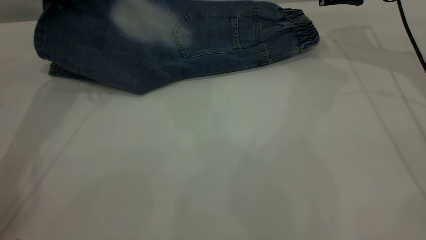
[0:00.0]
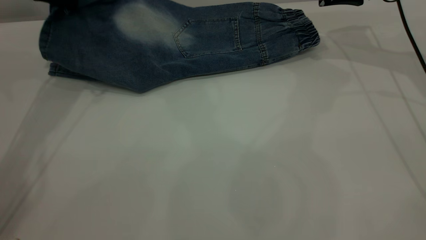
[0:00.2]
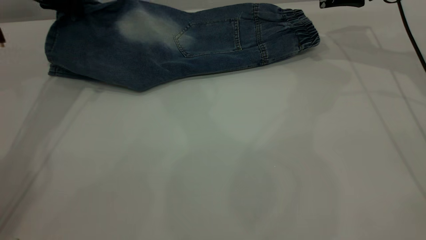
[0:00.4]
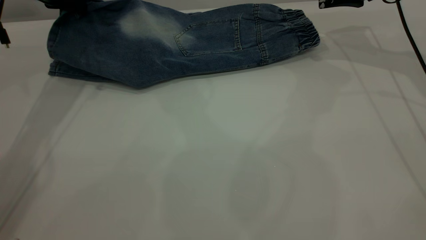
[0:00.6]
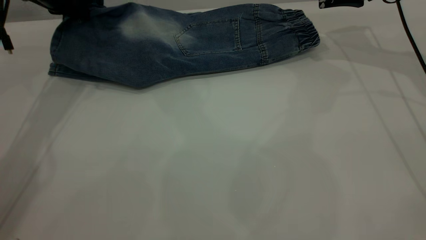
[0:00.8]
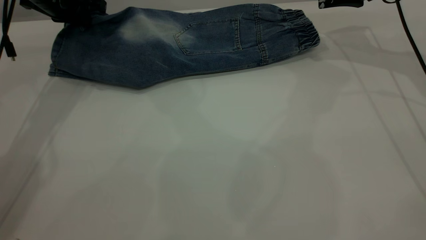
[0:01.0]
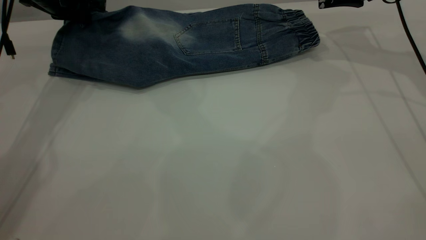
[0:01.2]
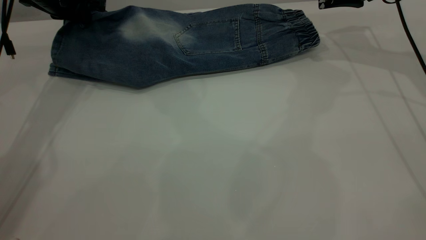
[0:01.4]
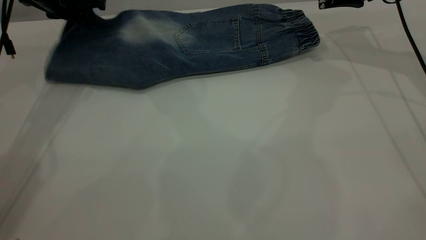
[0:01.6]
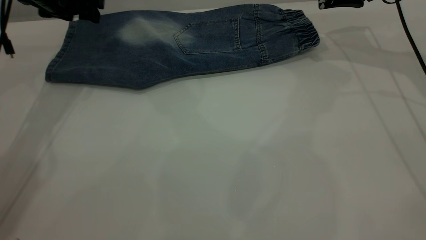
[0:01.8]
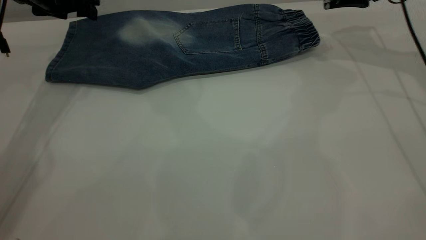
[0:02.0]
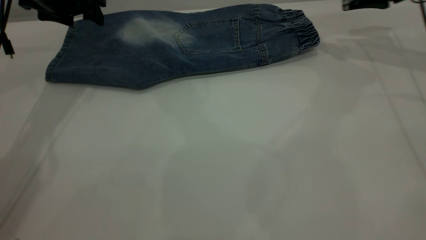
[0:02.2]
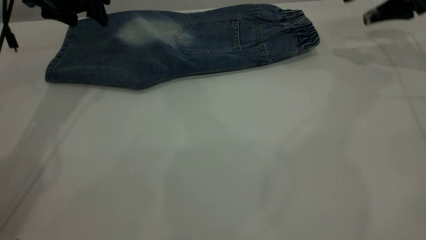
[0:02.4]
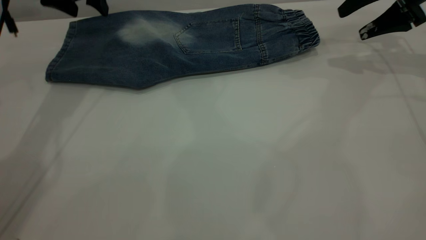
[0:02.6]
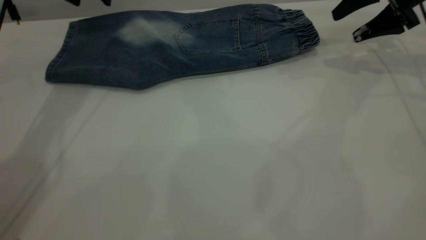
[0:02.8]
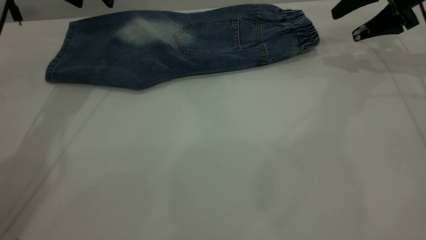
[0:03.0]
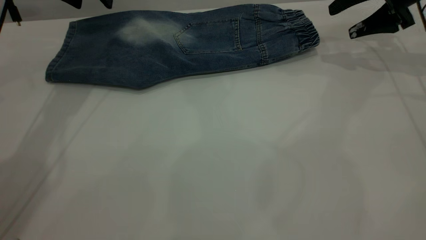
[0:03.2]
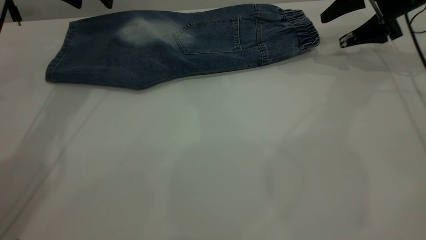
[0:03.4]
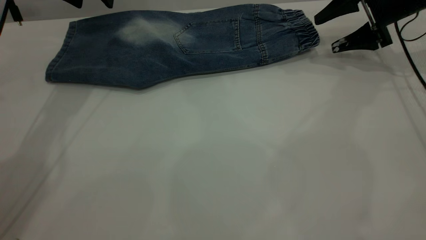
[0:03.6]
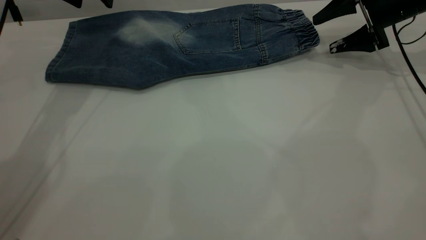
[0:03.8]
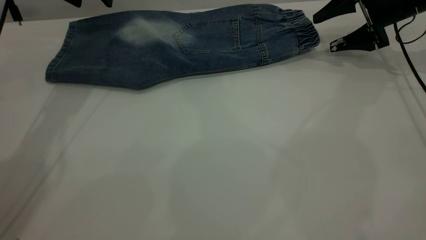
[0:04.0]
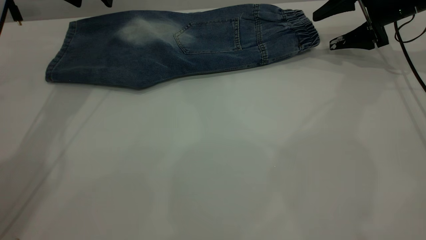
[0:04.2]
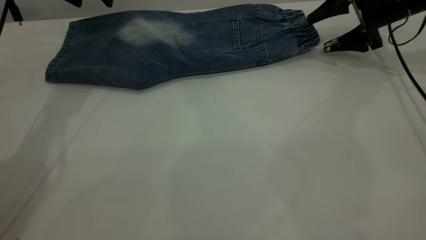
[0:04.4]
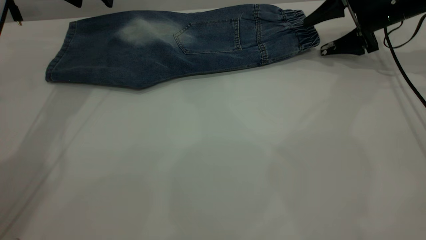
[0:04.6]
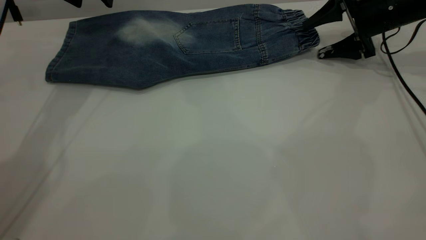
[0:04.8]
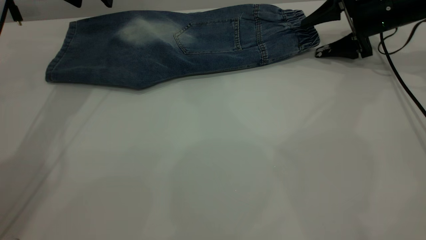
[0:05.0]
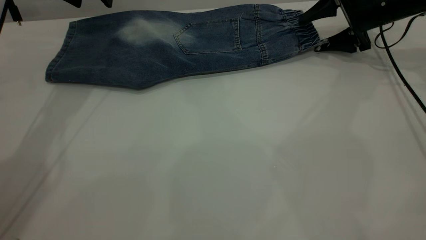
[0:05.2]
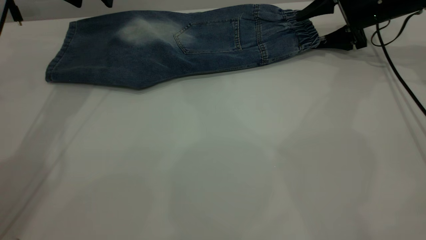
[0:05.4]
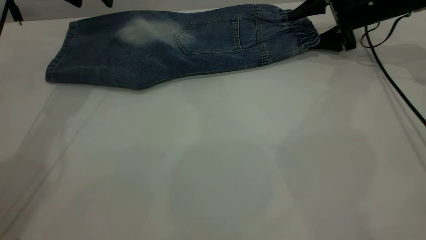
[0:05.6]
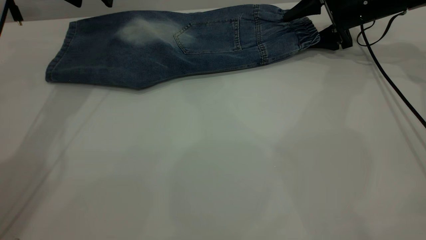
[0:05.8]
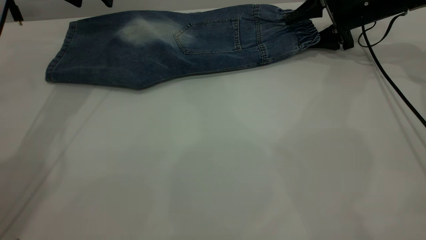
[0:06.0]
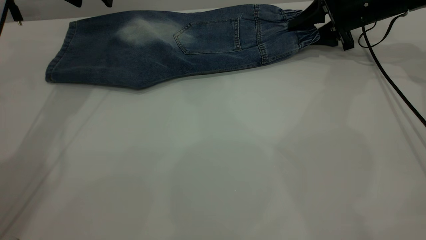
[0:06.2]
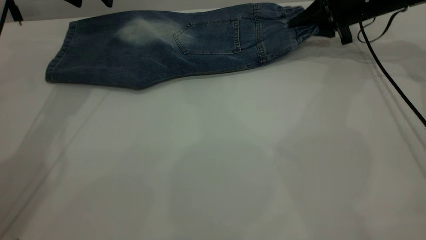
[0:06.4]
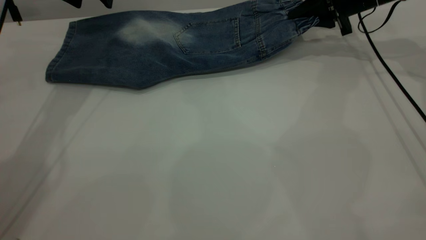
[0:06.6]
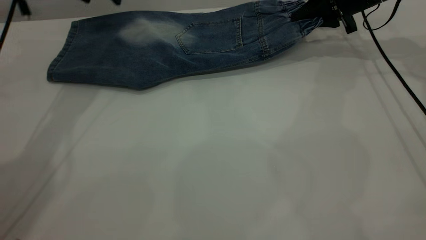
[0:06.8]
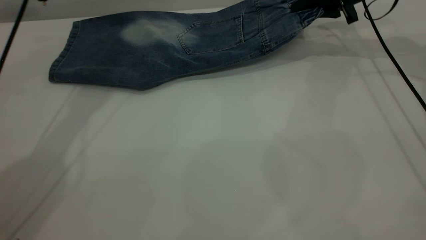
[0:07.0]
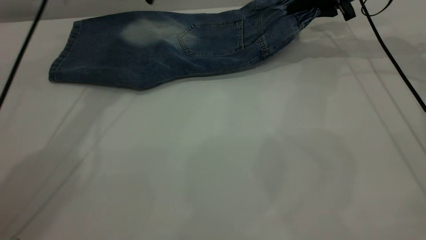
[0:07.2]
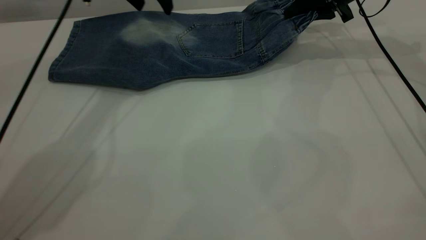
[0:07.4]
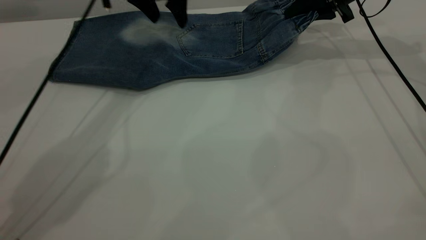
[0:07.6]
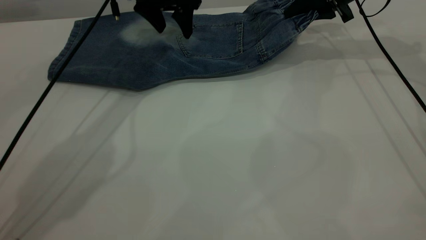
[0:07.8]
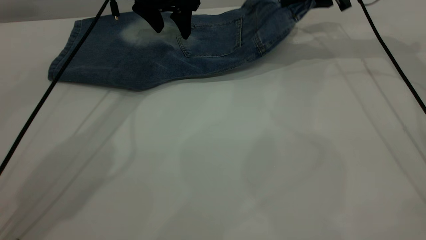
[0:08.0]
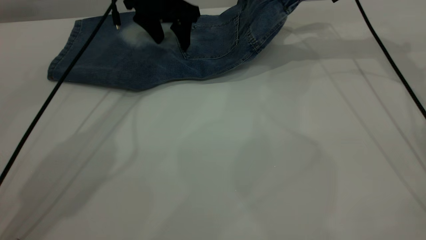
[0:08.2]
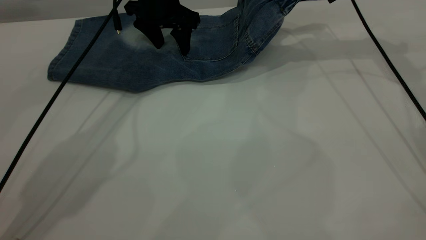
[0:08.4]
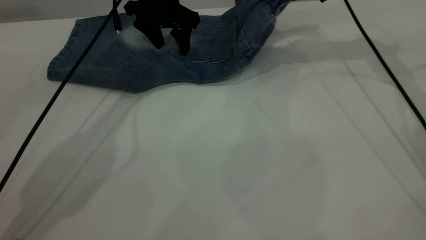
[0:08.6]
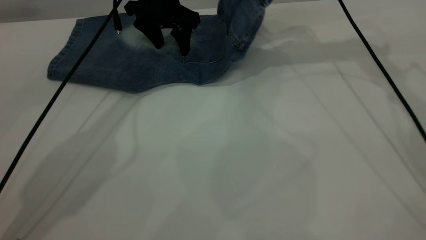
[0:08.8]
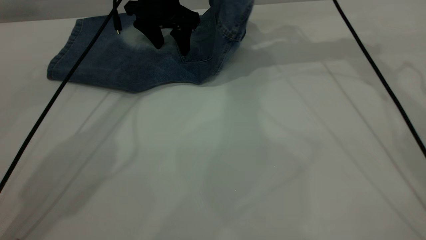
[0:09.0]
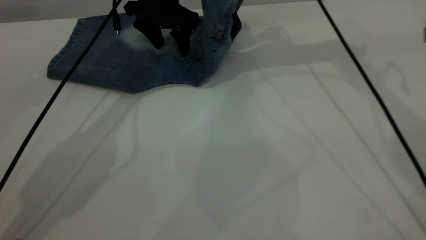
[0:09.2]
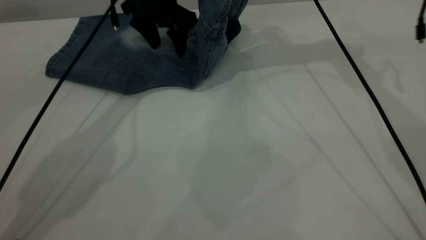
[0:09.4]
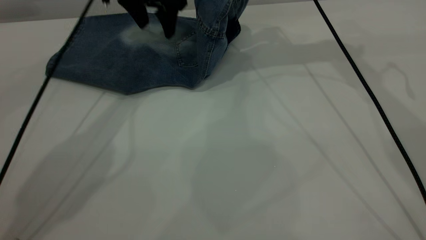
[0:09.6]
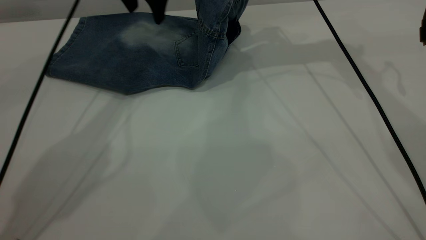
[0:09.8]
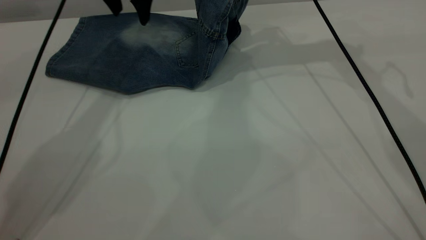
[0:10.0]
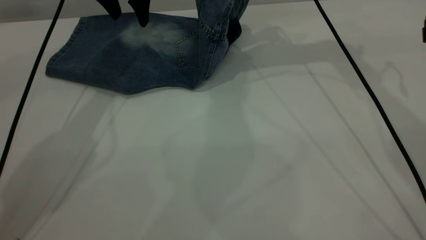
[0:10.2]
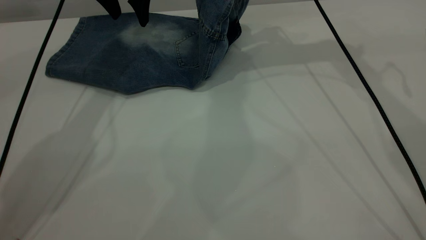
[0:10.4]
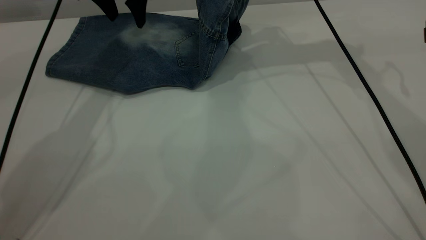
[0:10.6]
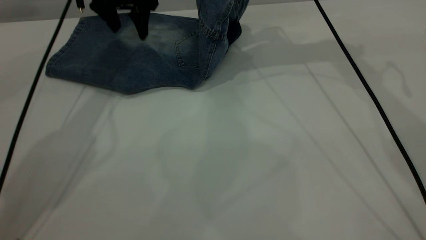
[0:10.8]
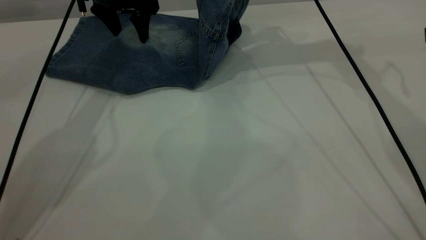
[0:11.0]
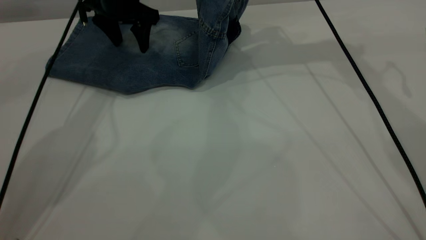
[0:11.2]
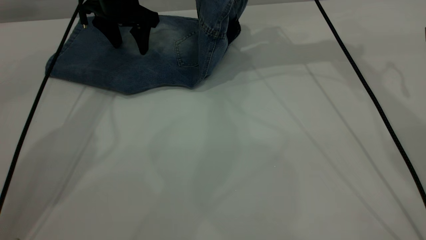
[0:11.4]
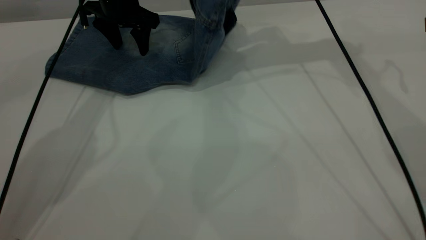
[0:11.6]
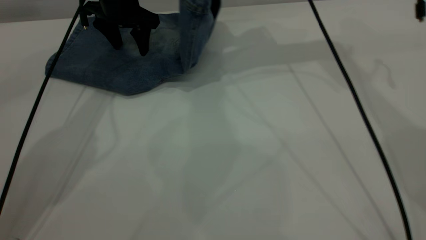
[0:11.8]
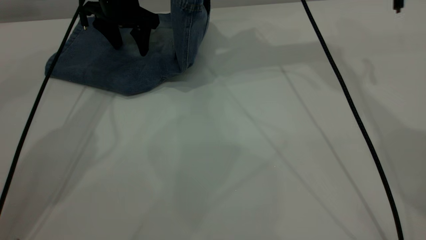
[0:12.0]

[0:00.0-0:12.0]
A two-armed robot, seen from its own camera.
Step, 0.0 to 3.0 s: Fold the bottom of the pants upward.
0.0 to 1.6 s: The left gripper shifts roughly 5 cm downward, and opens.
1.6 to 3.0 s: The left gripper moves about 5 cm, and opens. The right gripper changes place by some 5 cm.
3.0 to 4.4 s: The right gripper shifts by some 5 cm.
4.4 to 6.0 s: The grippers move only a little.
6.0 to 7.6 s: The left gripper is displaced to the right by approximately 15 cm. Meanwhile the right gripper goes about 5 cm upward, and closes its fingers.
7.6 to 9.0 s: The right gripper heads to the left and upward, covering roughly 10 cm.
9.0 to 10.4 s: The left gripper shifts about 10 cm to the left and upward.
10.4 to 12.0 s: The left gripper is displaced downward by about 5 cm. Meanwhile the right gripper moves upward, approximately 5 cm.

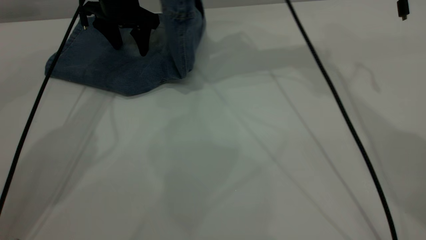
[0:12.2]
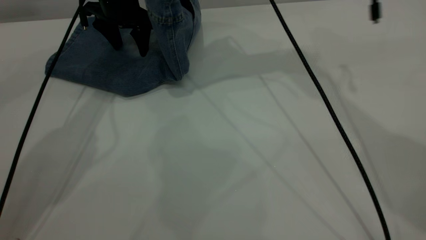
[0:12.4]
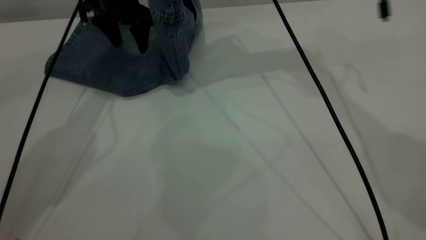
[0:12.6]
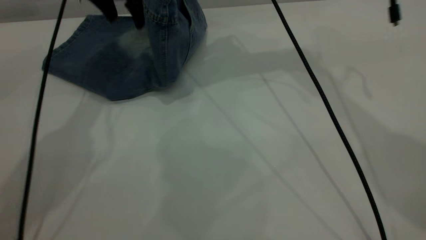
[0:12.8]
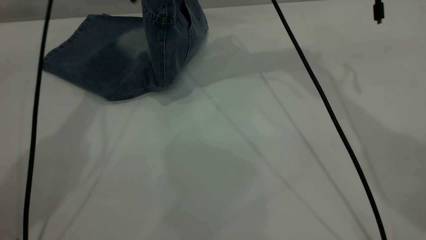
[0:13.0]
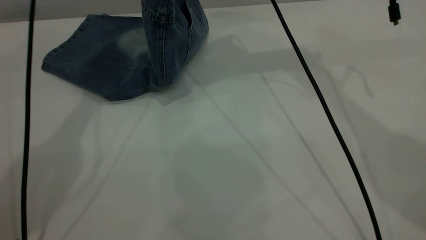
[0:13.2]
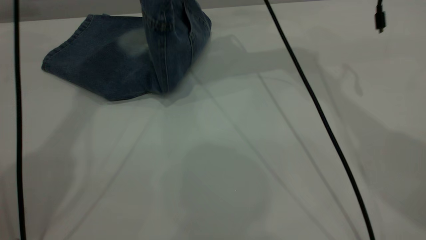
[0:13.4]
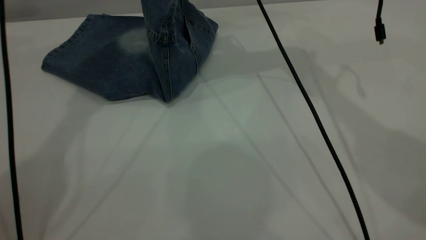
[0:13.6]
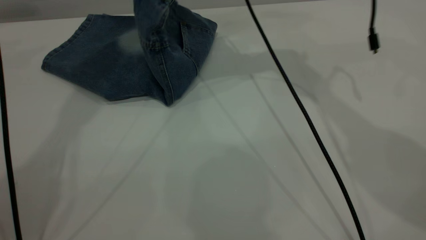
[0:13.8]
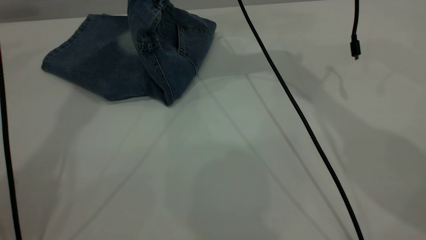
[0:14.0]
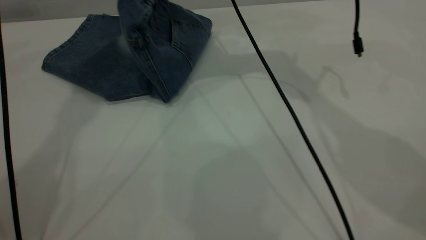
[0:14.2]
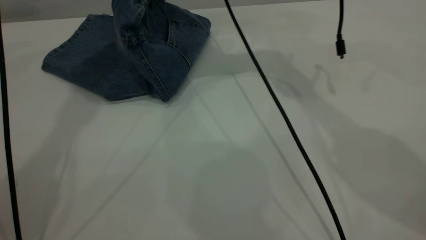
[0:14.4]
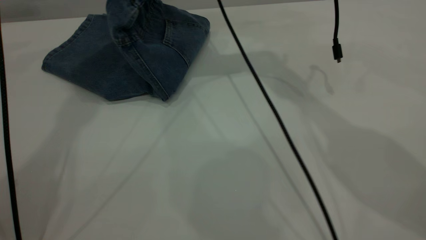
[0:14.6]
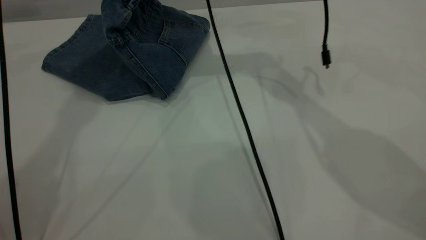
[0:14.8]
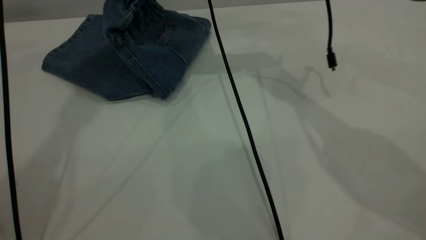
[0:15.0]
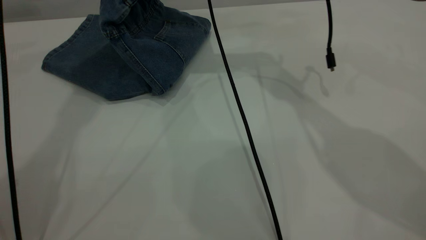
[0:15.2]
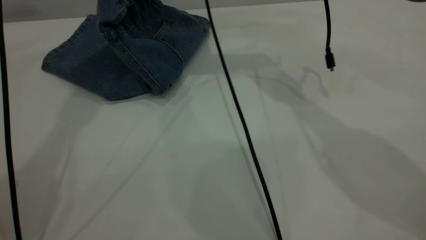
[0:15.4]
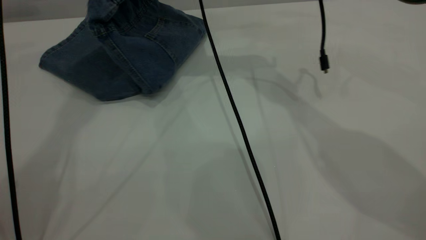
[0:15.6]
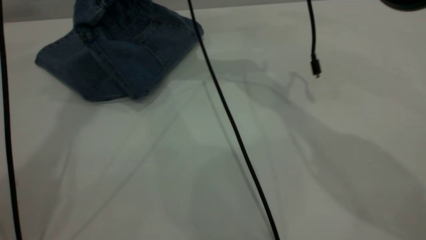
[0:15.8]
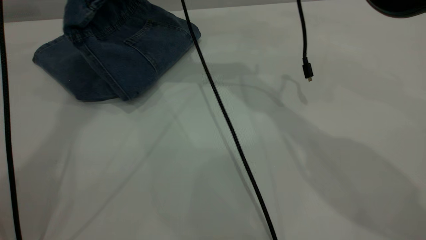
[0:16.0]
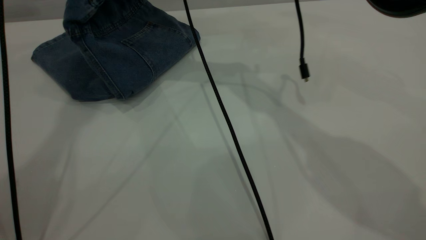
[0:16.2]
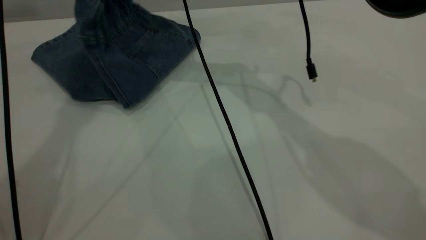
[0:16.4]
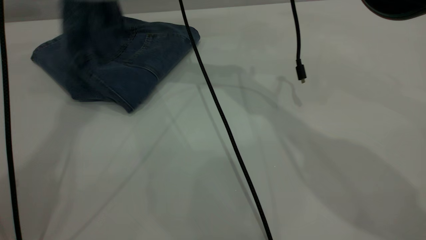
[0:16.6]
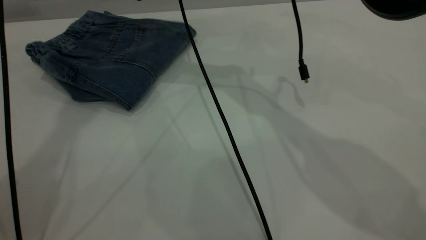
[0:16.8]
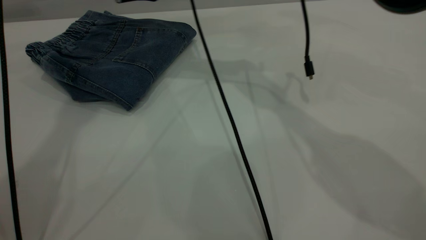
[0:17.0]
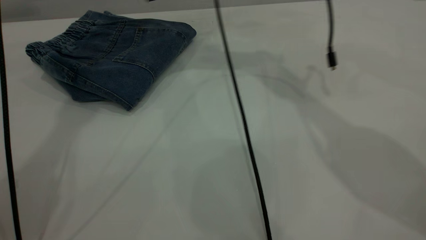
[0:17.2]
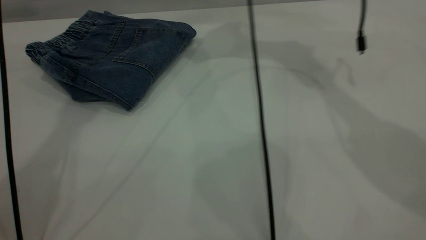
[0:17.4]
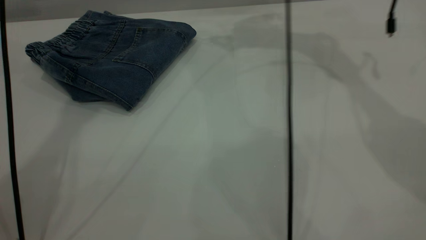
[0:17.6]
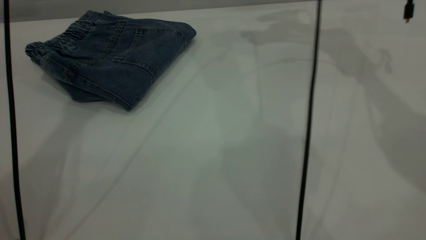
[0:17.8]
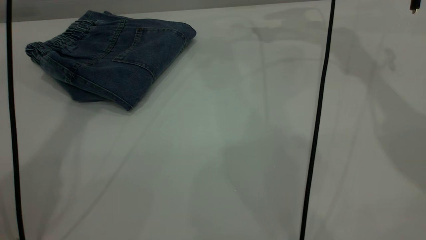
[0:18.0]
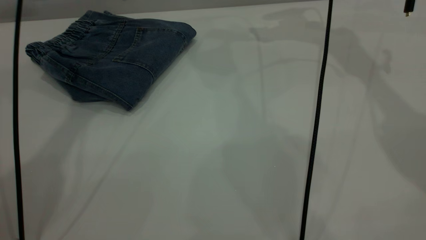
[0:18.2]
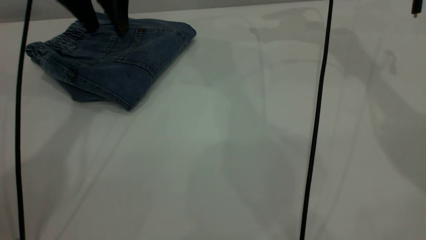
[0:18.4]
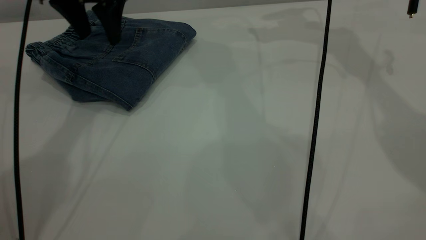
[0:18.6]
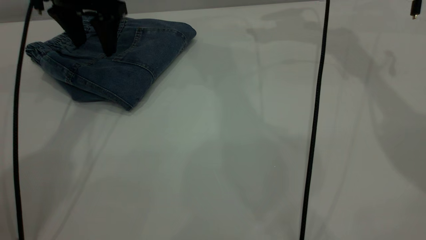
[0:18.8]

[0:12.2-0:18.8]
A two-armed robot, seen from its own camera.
Step, 12.2 to 17.0 s: Fold your pants from right to left.
12.2 to 13.8 s: The left gripper goes some 30 cm upward; the right gripper is displaced downward by approximately 5 cm.
13.8 to 15.4 s: The right gripper travels to the left by roughly 5 cm.
15.4 to 17.2 s: The right gripper opens its fingers.
17.2 to 18.8 s: The right gripper heads to the right, covering about 15 cm; the left gripper moves downward, roughly 25 cm.
